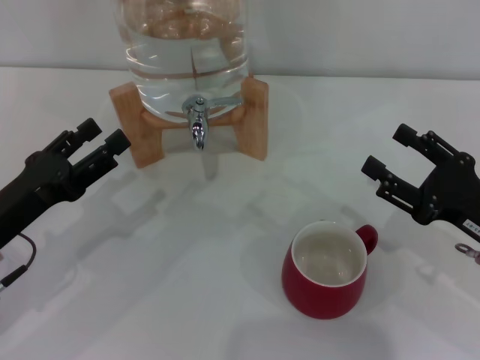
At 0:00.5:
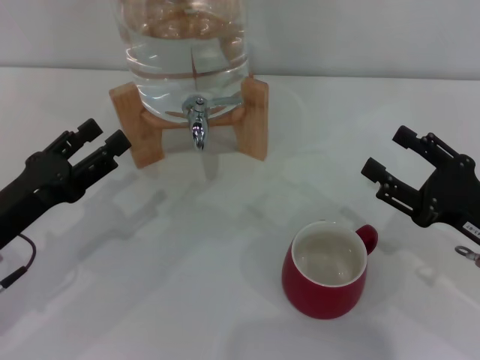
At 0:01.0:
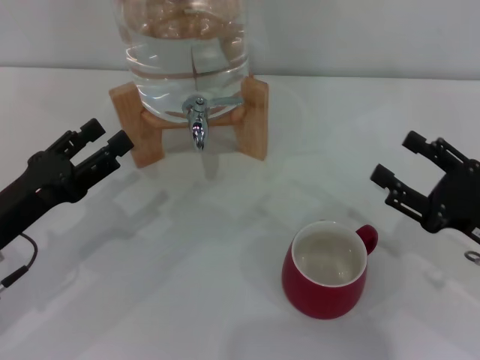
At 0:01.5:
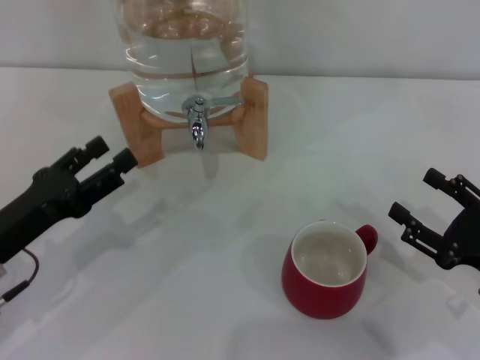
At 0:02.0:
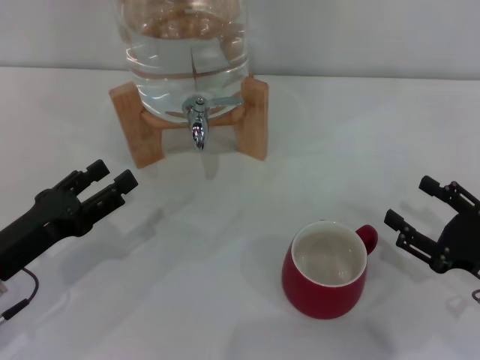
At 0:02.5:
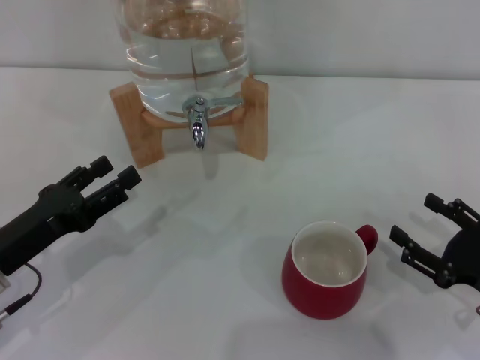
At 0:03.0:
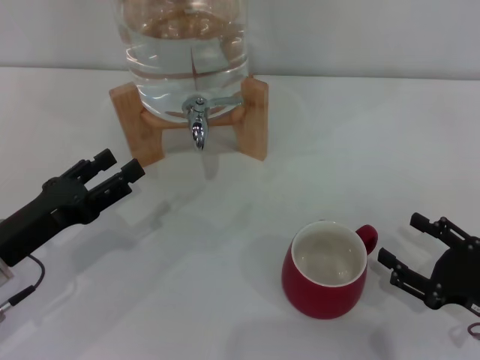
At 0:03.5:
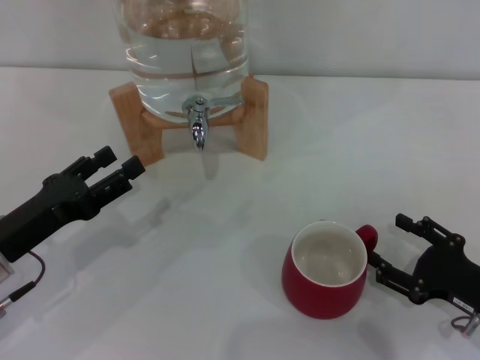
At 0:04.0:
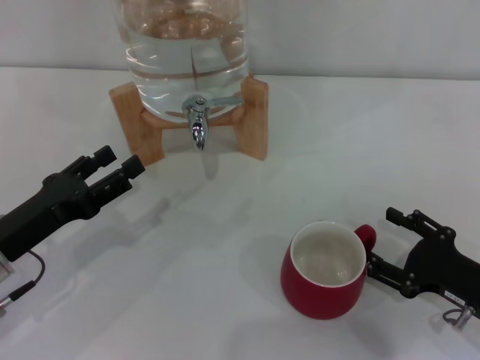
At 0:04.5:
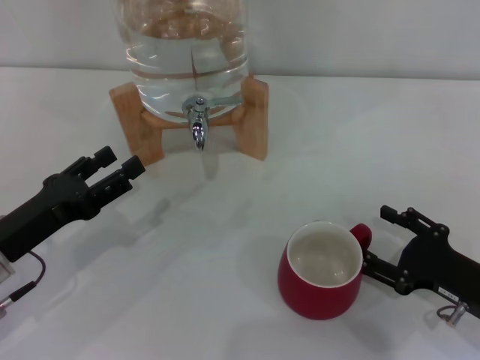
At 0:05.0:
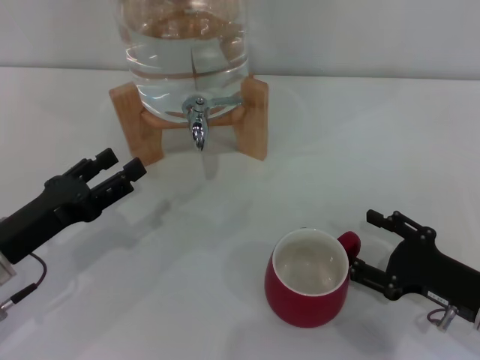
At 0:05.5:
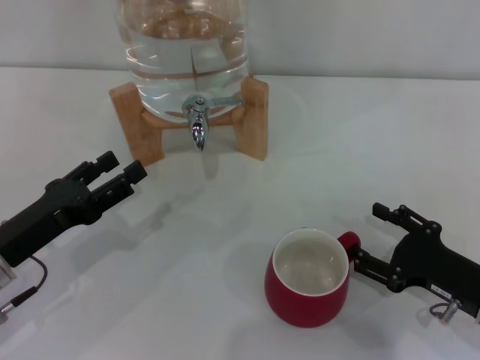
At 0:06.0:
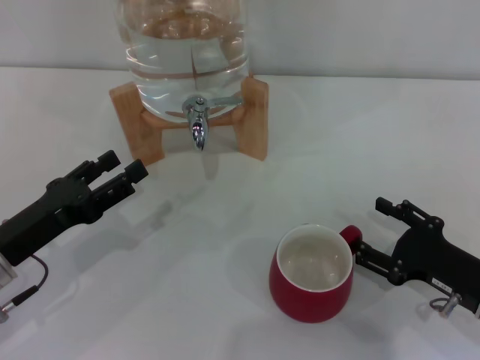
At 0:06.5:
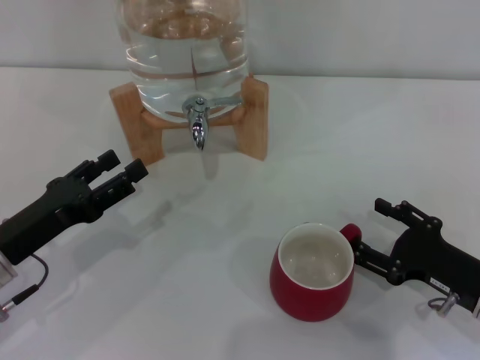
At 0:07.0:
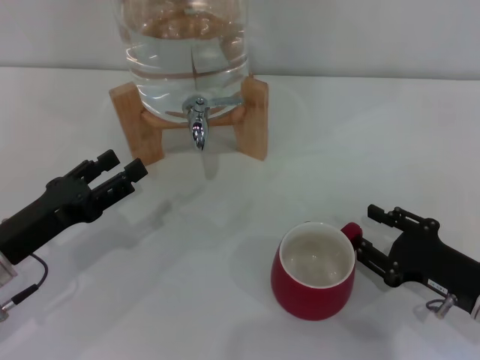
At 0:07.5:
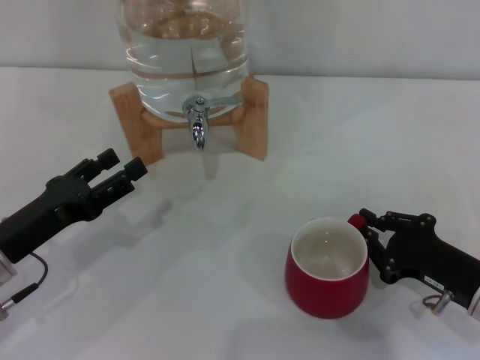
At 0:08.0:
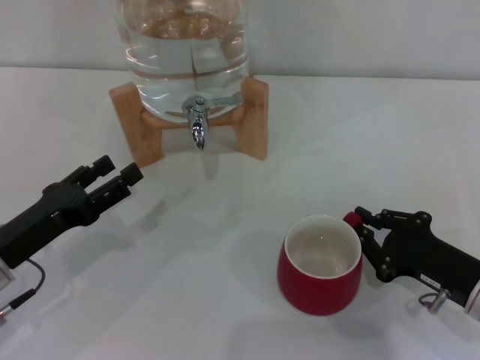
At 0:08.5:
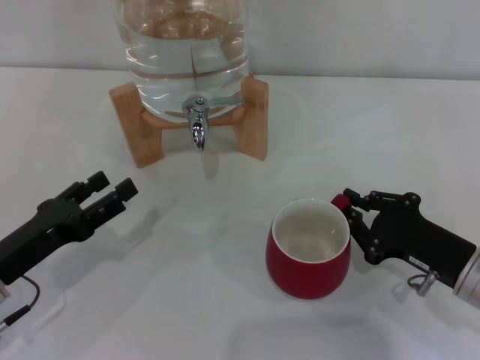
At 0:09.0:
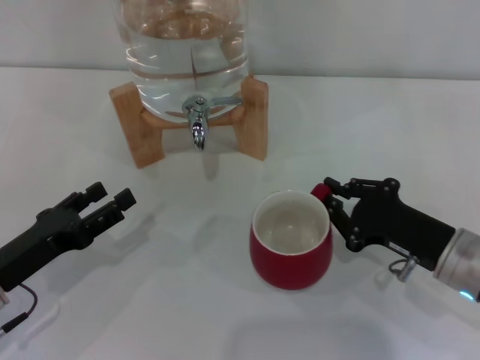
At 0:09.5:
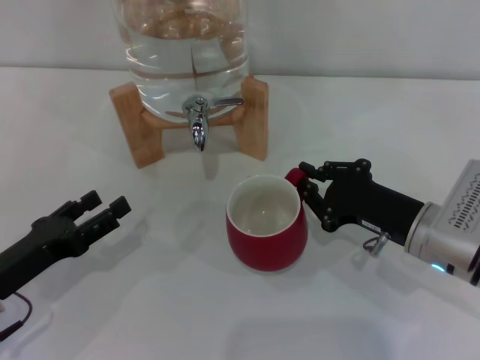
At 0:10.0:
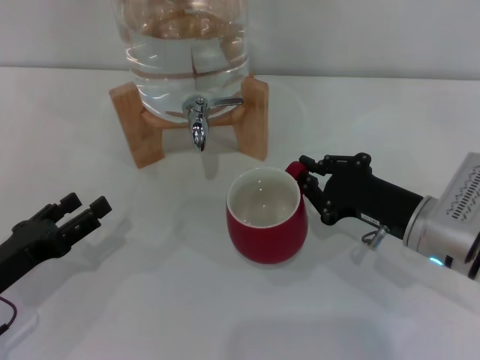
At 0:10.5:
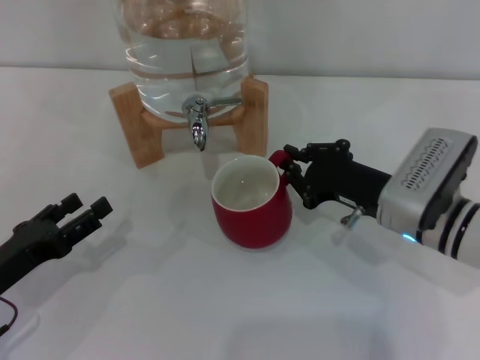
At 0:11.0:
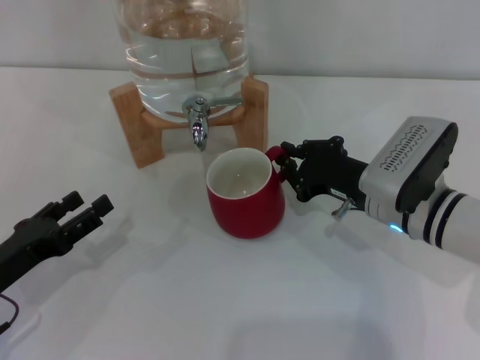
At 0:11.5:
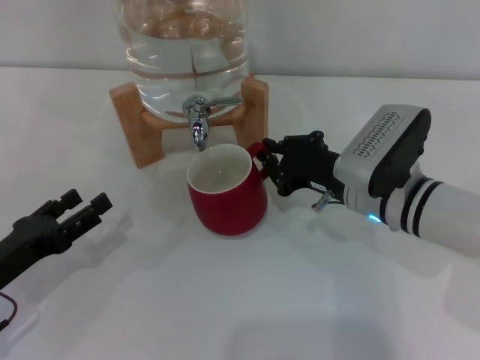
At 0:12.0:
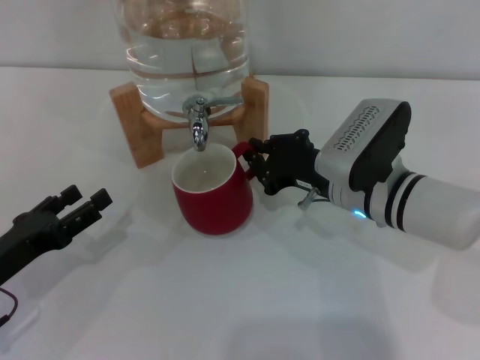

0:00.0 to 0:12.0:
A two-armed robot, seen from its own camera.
Task of the whole recording: the right gripper pick up the red cup and place it horizontally under the faucet, the left gripper turn on the faucet to fill the cup, and then turn off the faucet.
0:00.0 to 0:02.0: The right gripper ends up about 5 cm from where it was.
0:02.0 to 0:06.0: The grippers move only a little.
0:06.0 to 0:08.0: The right gripper closes up.
0:08.0 to 0:10.0: The right gripper goes some 10 cm forward and to the left.
0:10.0 to 0:12.0: The right gripper goes about 5 cm to the left.

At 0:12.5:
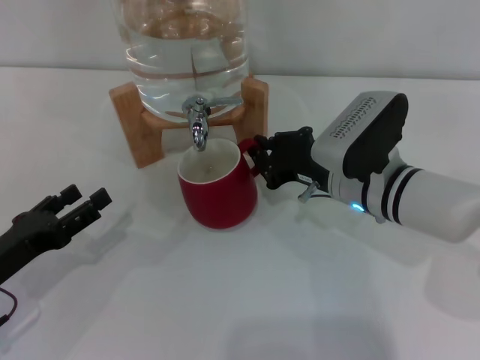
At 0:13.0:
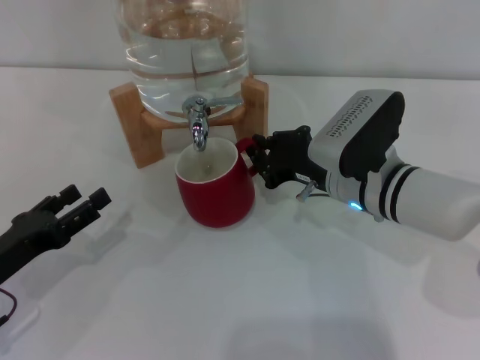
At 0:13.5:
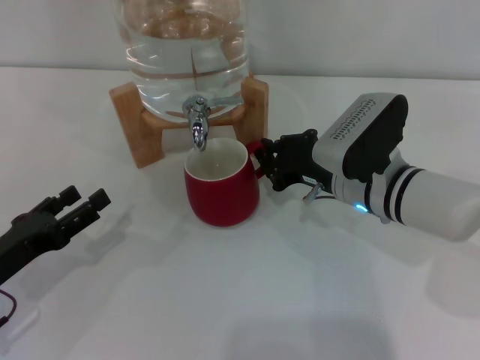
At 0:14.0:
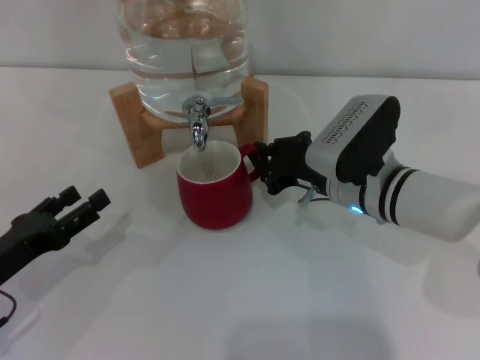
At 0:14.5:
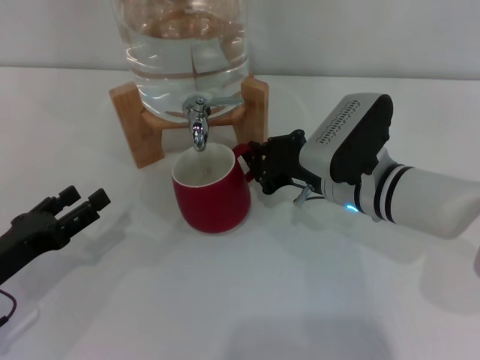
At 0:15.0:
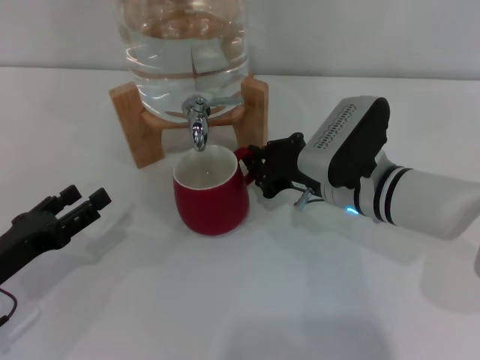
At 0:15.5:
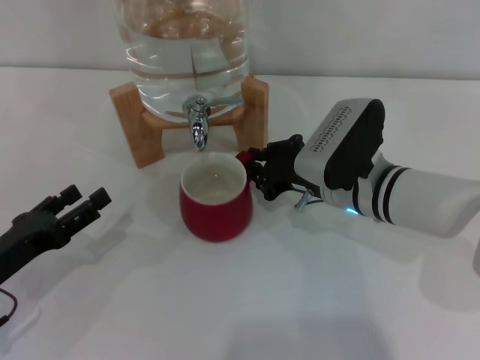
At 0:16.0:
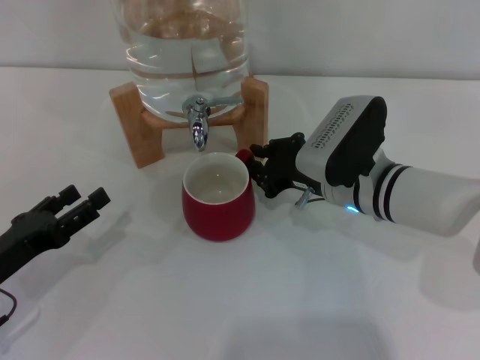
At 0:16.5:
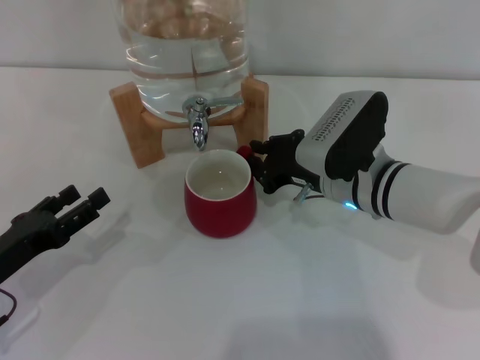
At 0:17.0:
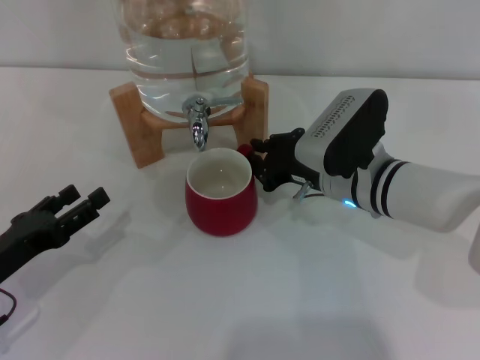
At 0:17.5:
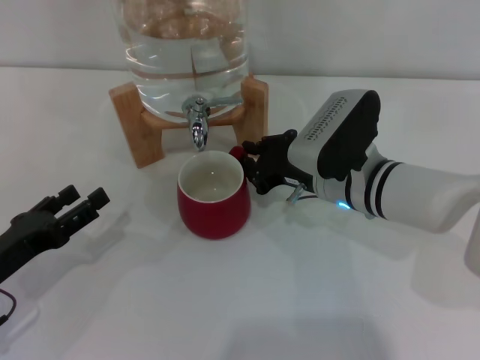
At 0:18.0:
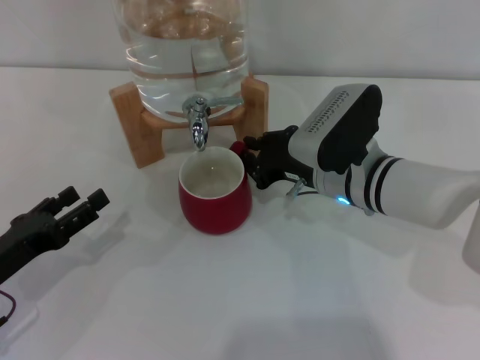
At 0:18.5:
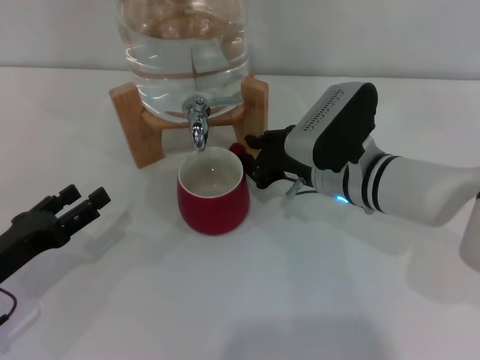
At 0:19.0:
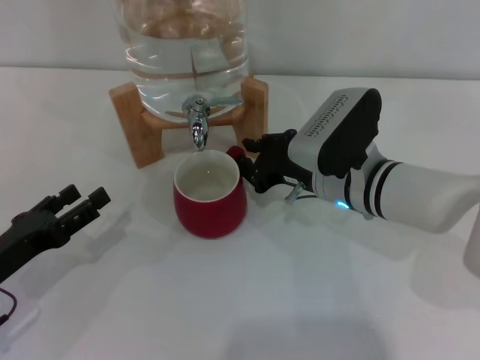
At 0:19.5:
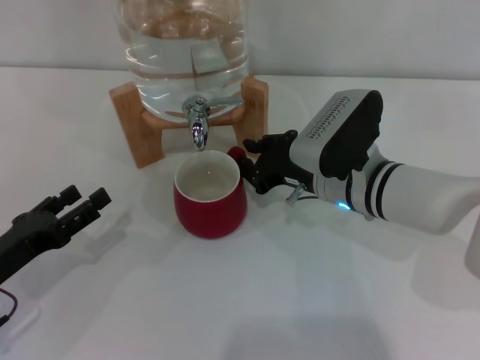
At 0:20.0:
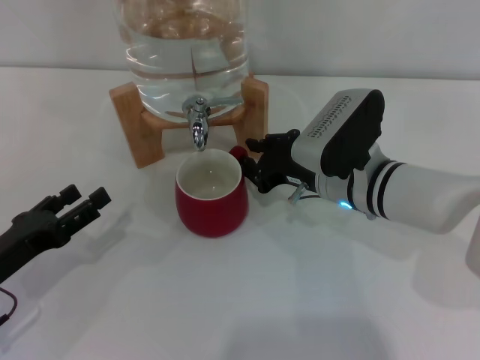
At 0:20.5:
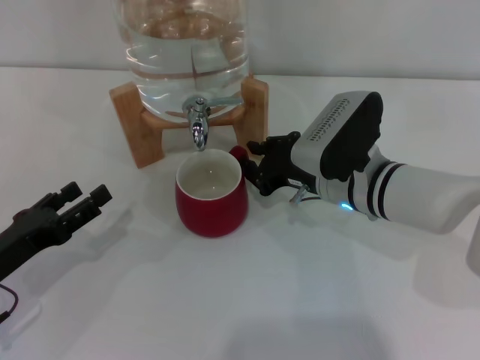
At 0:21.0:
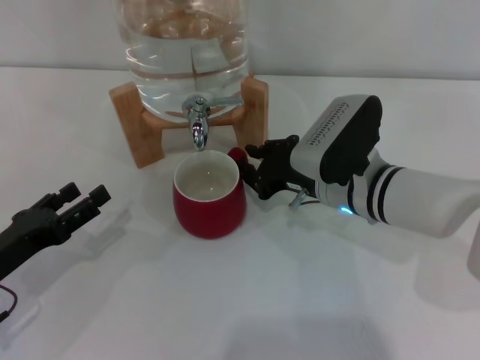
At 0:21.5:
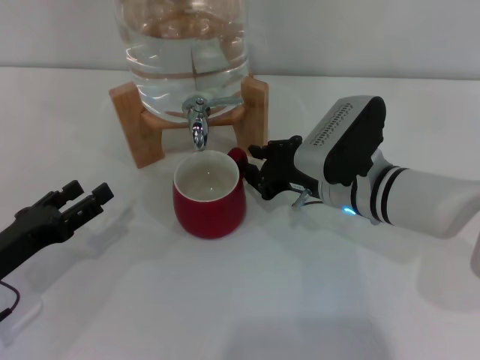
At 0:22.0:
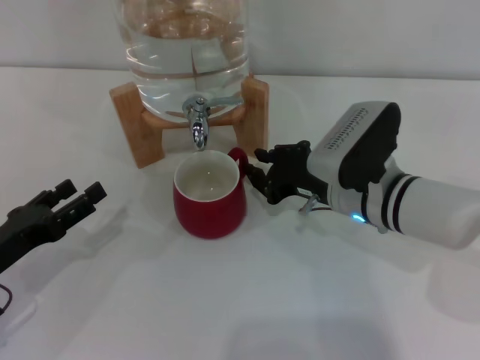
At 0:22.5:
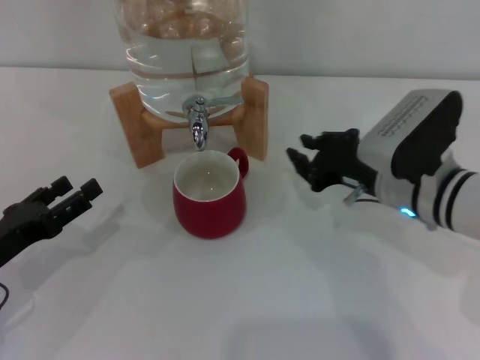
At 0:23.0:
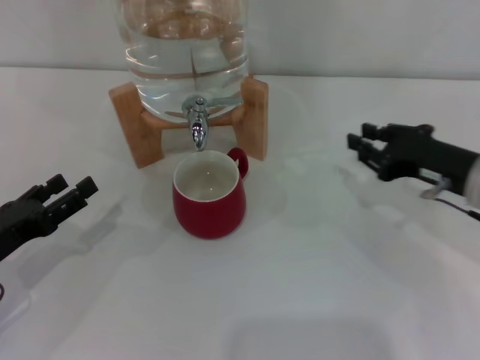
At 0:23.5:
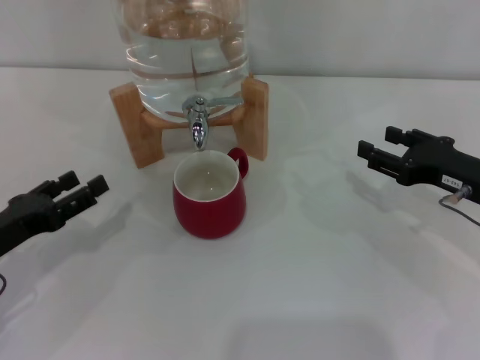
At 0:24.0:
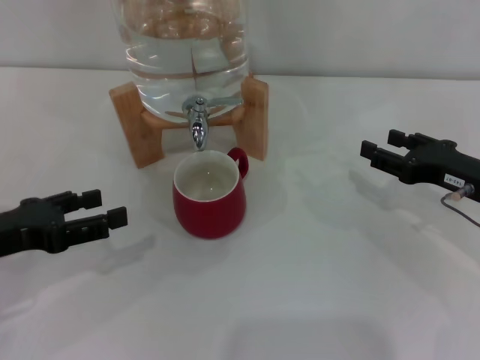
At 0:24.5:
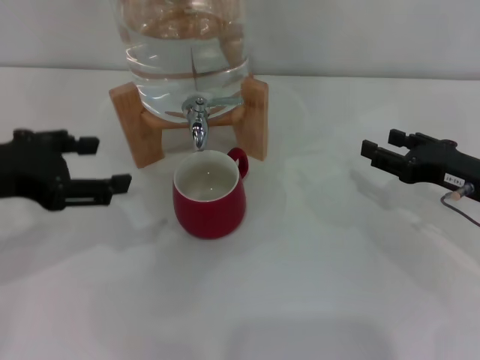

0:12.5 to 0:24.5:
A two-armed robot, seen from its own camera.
Task of the whole recording: the right gripper pick up the red cup and place it horizontally under the faucet, the left gripper turn on the faucet to fill the cup, and then turn off the faucet.
Step, 0:12.5 to 0:22.0: Move the cup beneath the water dispenser nozzle with the right gripper.
0:12.5 to 0:14.5: Both grippers stay put.
0:14.5 to 0:16.5: Neither gripper changes place.
0:16.5 to 0:20.5: Neither gripper changes place.
0:20.5 to 0:22.5: The right gripper is displaced to the right by some 5 cm.
0:22.5 to 0:24.5: The right gripper is displaced to the right by some 10 cm, and opens up; the left gripper shifts some 15 cm upward.

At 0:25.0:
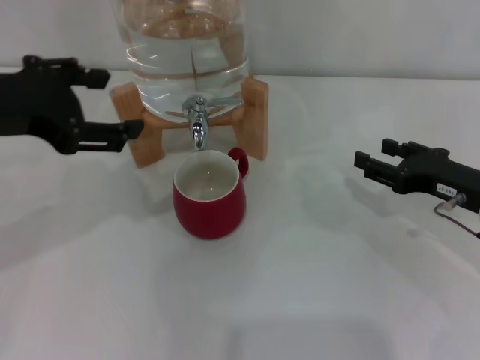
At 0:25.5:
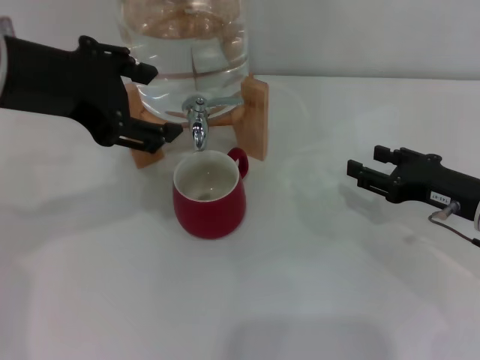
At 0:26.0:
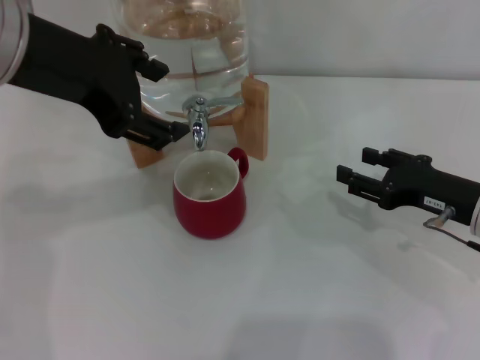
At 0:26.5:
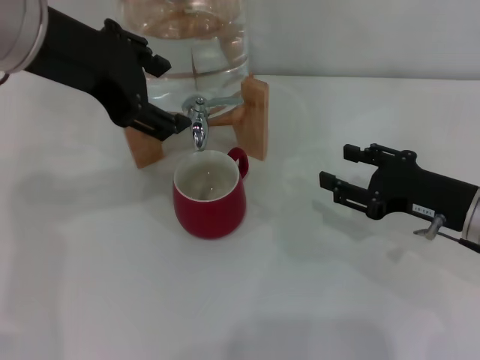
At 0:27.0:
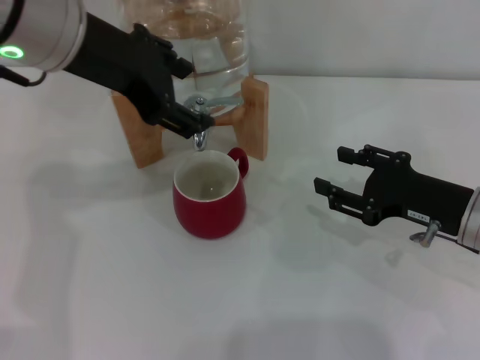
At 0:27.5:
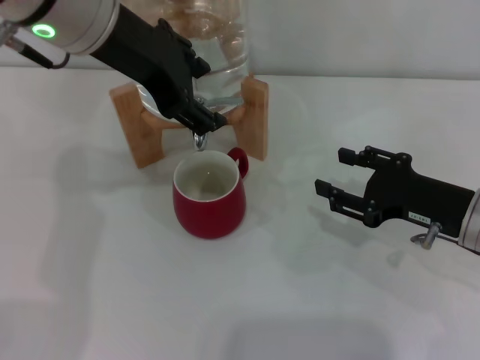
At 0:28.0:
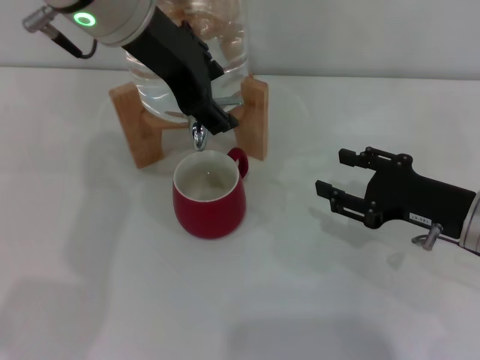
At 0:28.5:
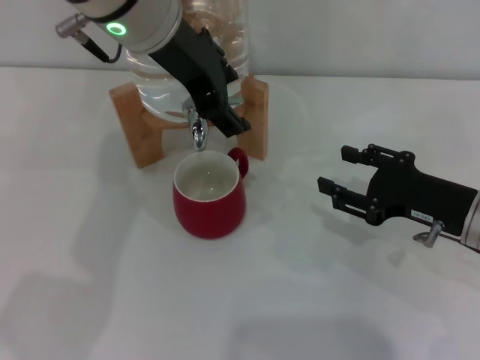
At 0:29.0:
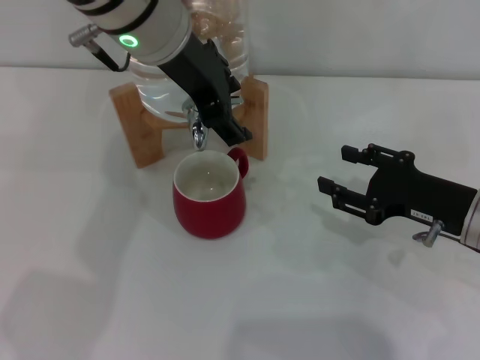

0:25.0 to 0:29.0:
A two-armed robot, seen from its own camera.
Task of the whole recording: the right gripper pick up the red cup and place it horizontally under the faucet, the left gripper turn on the faucet to fill the cup, and then turn off the faucet.
0:25.0 to 0:27.0: The left gripper travels to the right and forward by some 10 cm.
0:27.0 to 0:29.0: The left gripper moves to the right, about 5 cm.
